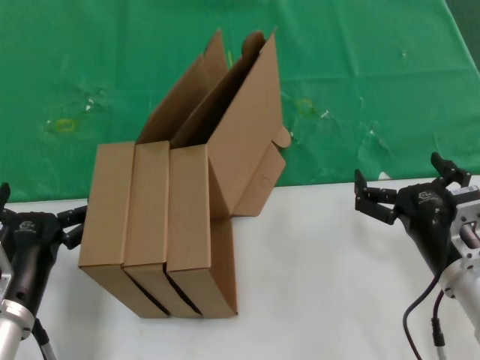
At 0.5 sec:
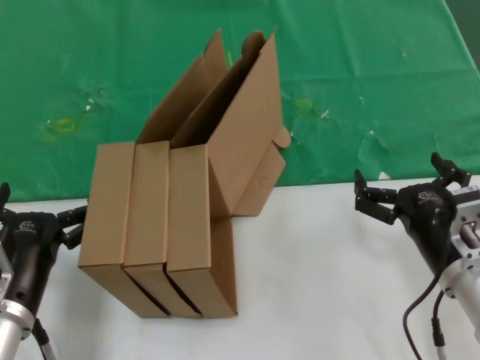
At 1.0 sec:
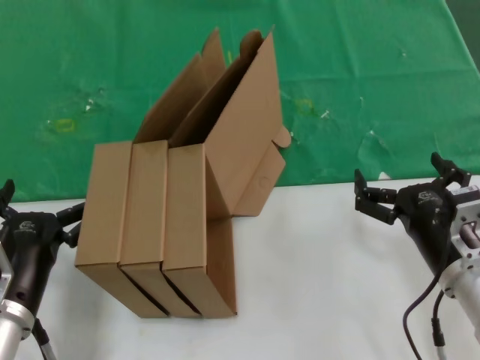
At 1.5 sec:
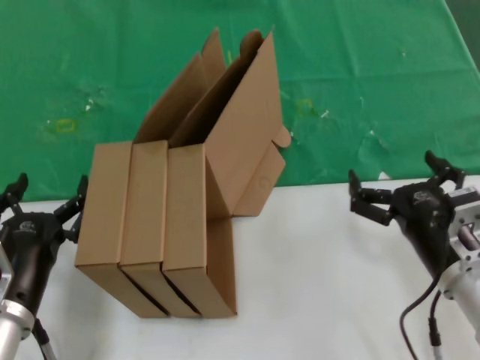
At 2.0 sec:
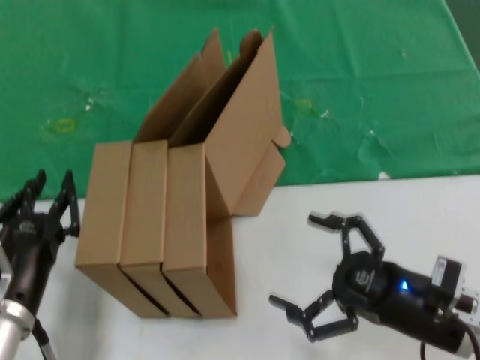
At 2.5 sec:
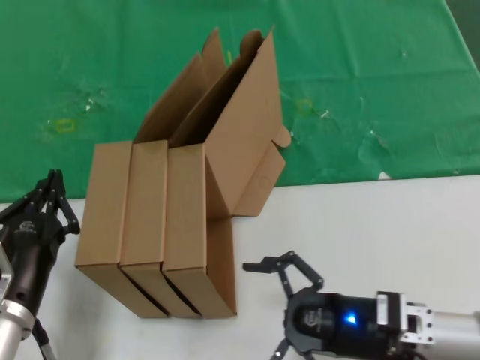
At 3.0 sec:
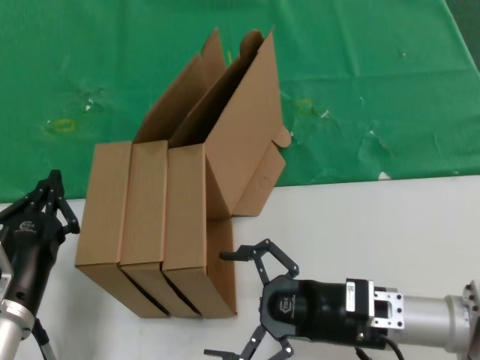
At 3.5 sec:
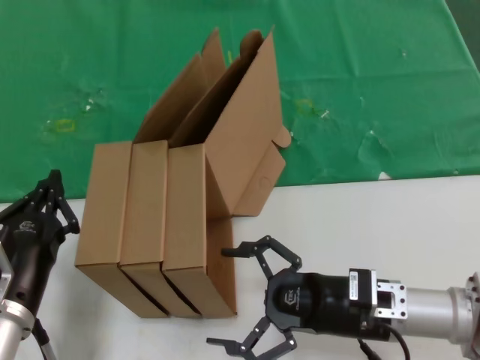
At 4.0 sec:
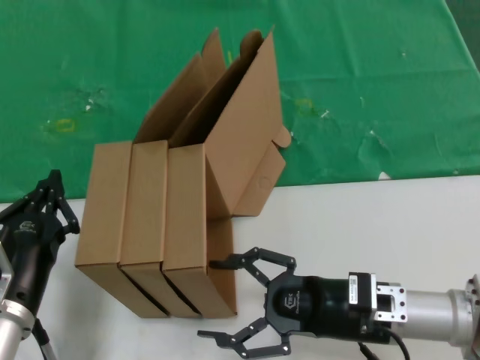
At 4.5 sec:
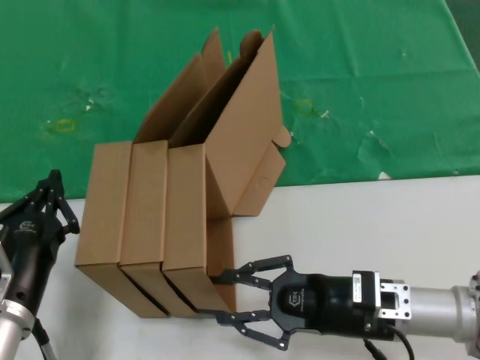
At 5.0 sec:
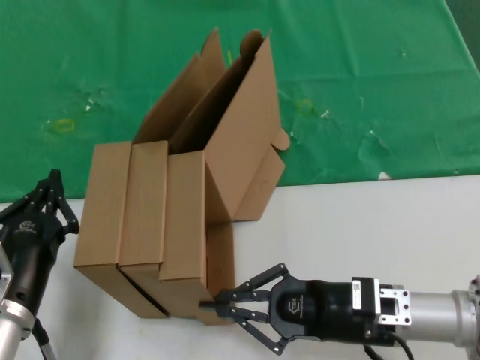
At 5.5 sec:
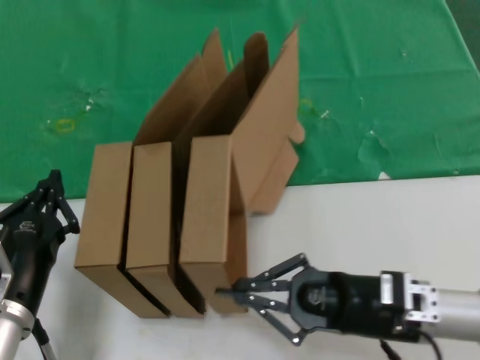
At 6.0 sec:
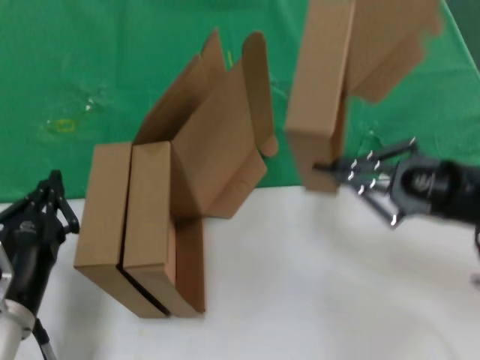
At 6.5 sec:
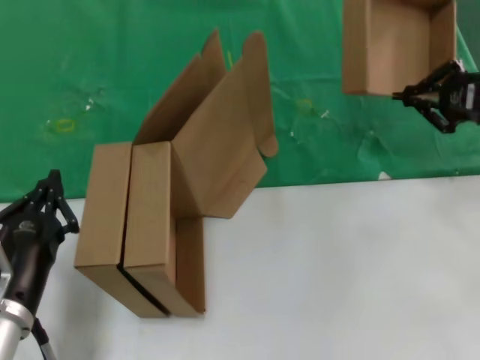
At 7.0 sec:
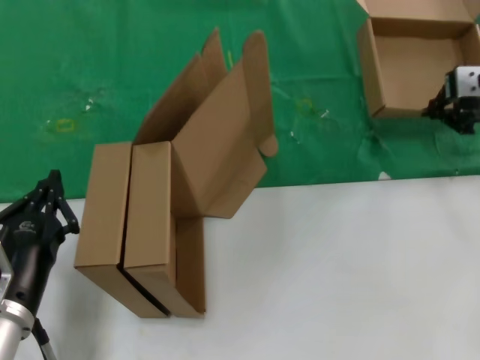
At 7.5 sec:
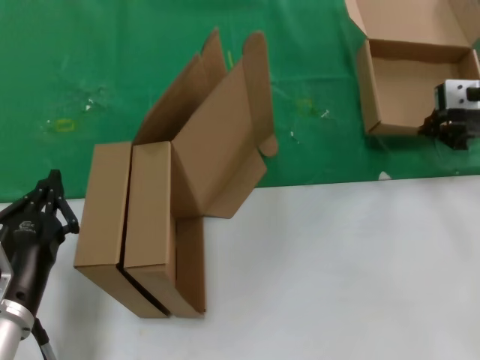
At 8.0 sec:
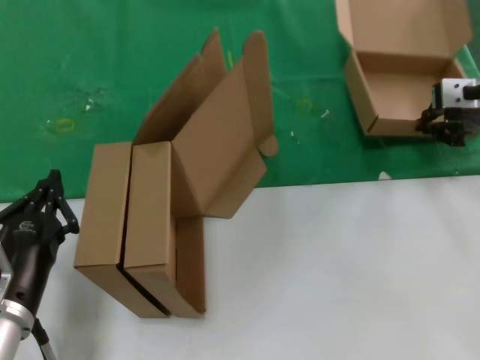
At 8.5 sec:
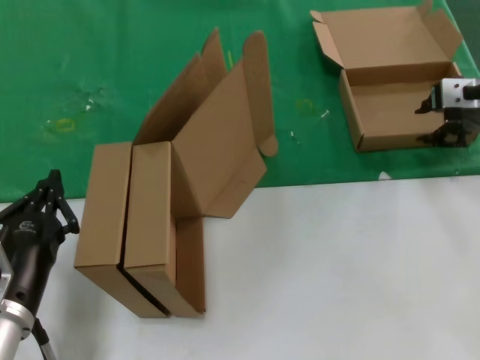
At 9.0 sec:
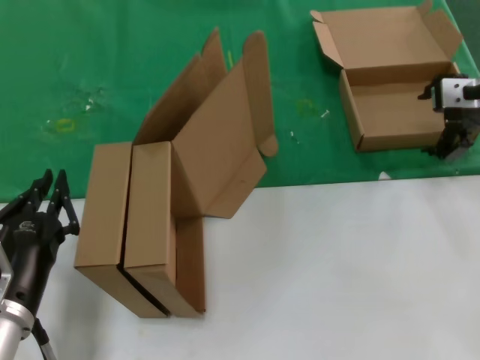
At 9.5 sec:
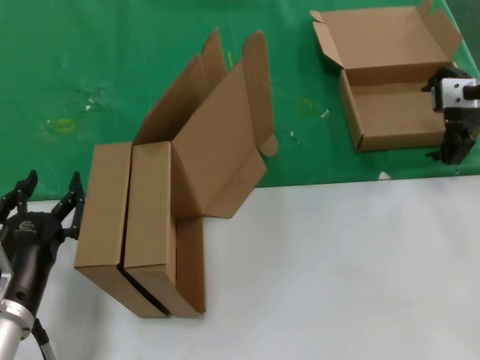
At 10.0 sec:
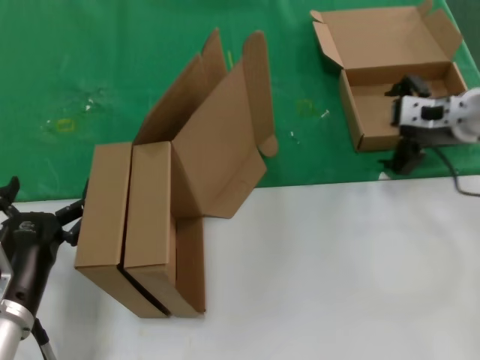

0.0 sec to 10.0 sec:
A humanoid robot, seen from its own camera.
Task of the whole recording: pick up the paper box and put it at the back.
Step, 0.0 sec to 5.0 sec: Grasp the paper box.
Step, 5.5 sec to 8.0 sec: Place the paper box on the table.
2.0 sec to 4.0 sec: The right hand goes some 10 cm forward and to the left.
4.0 sec to 6.0 sec: The right hand moves to the right and upward, some 20 cm.
6.0 sec to 8.0 sec: The right hand moves forward and upward, roughly 20 cm.
8.0 sec to 10.0 sec: The right hand travels downward by some 5 cm.

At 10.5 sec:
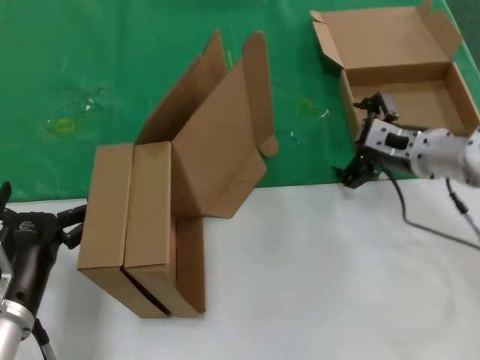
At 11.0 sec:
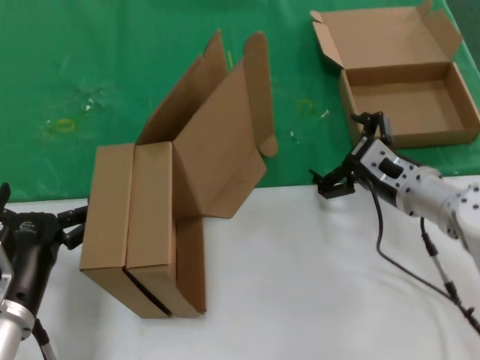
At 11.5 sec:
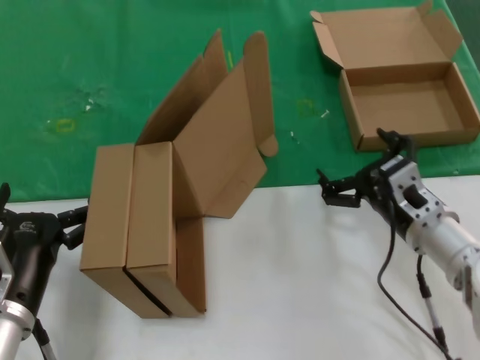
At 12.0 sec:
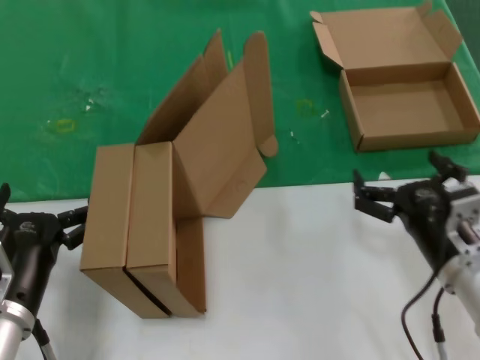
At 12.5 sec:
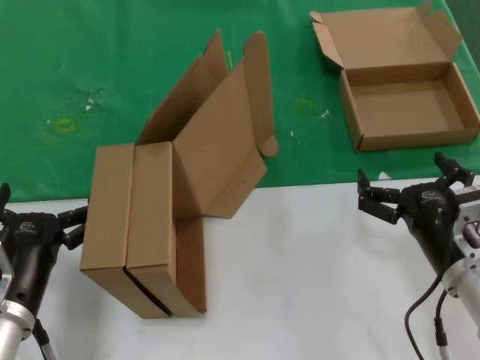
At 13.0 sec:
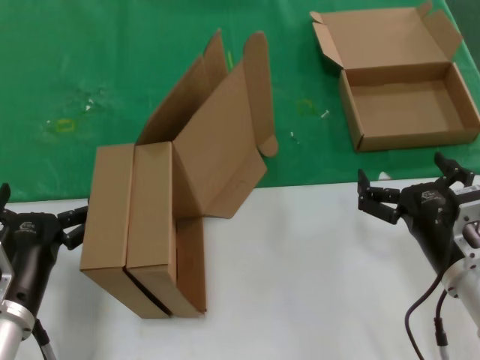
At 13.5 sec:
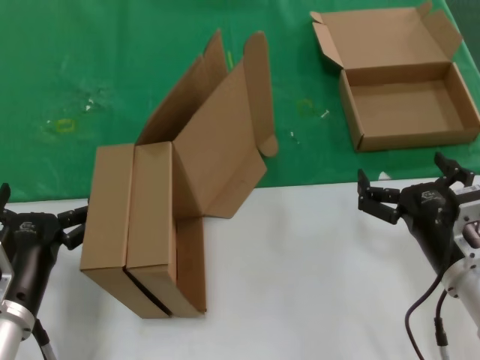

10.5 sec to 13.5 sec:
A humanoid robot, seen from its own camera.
Task of the whole recording: pick up the paper box and put it at the back.
10.5 sec to 12.0 sec: The right hand travels backward and downward by some 20 cm.
12.0 sec to 13.5 sec: Both hands stay about where they are.
